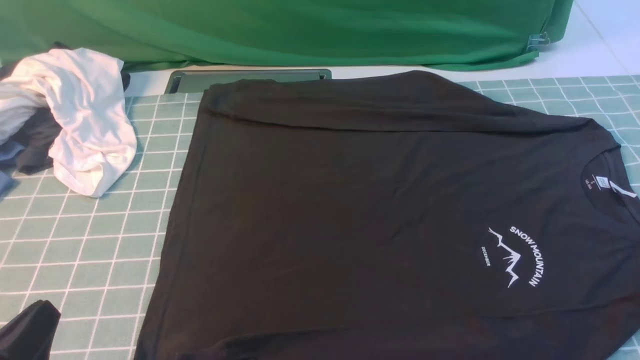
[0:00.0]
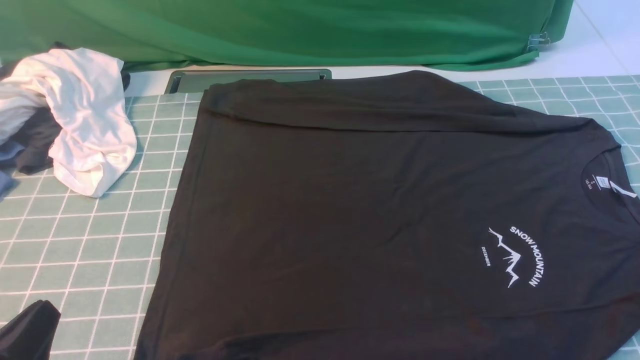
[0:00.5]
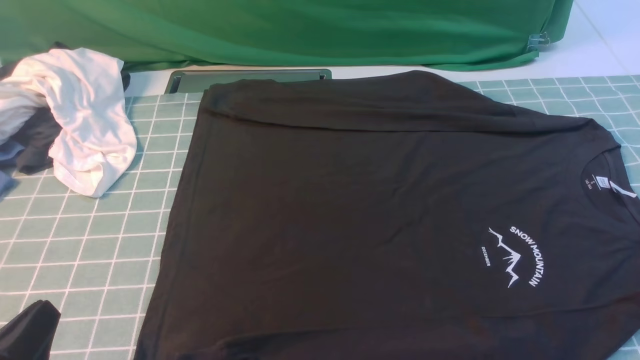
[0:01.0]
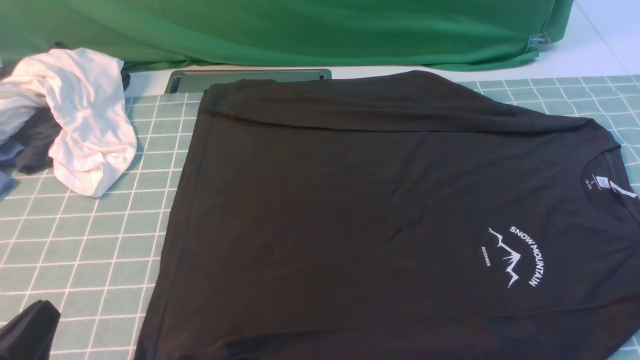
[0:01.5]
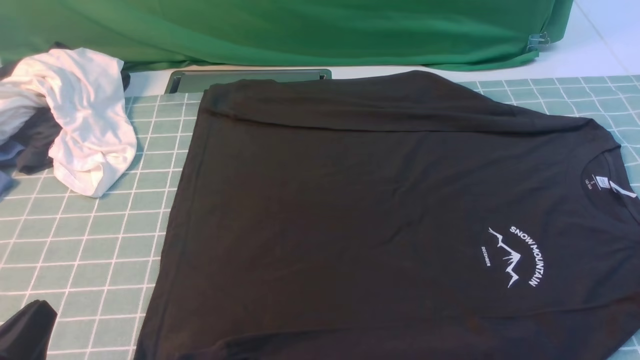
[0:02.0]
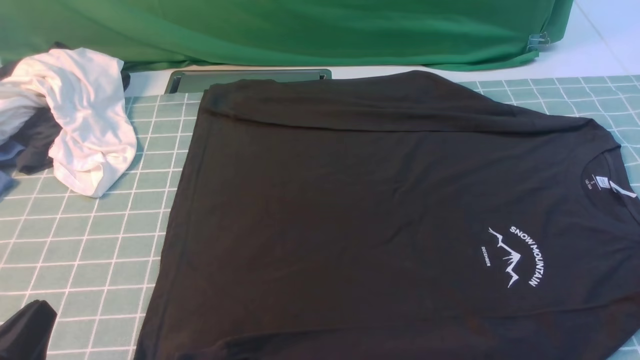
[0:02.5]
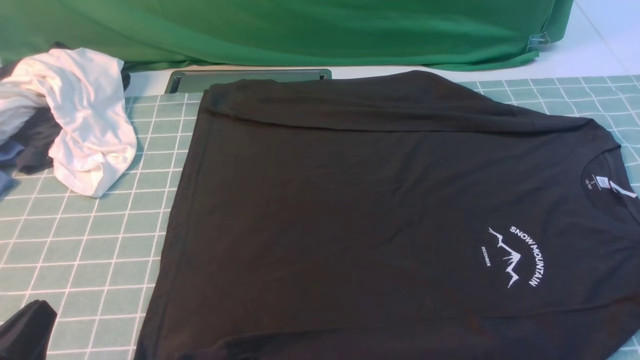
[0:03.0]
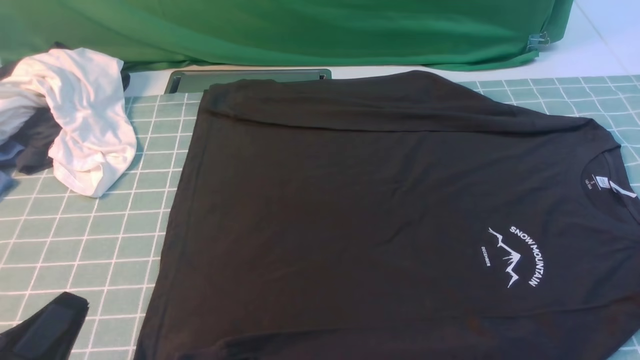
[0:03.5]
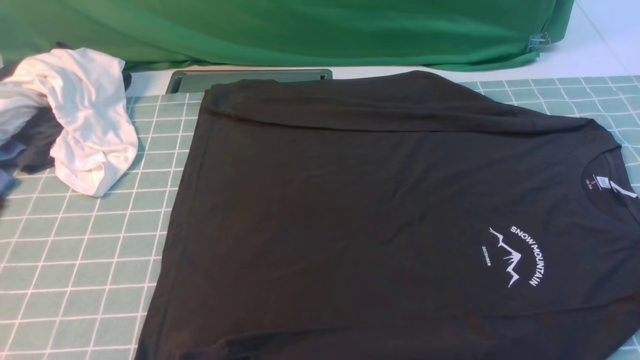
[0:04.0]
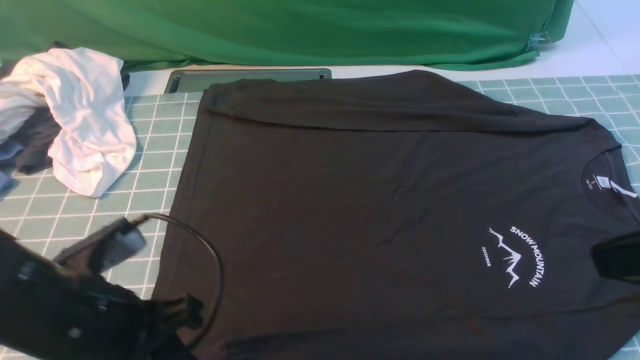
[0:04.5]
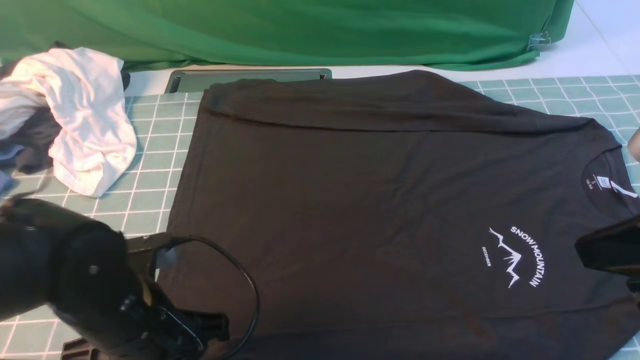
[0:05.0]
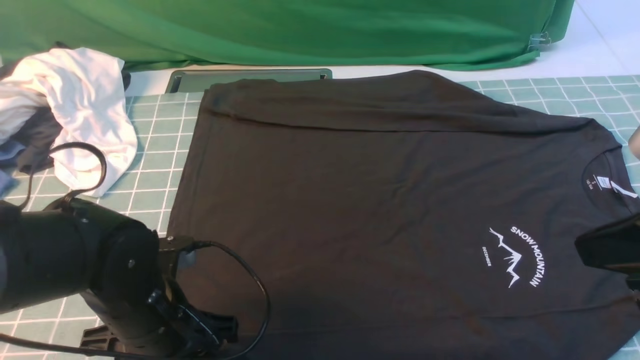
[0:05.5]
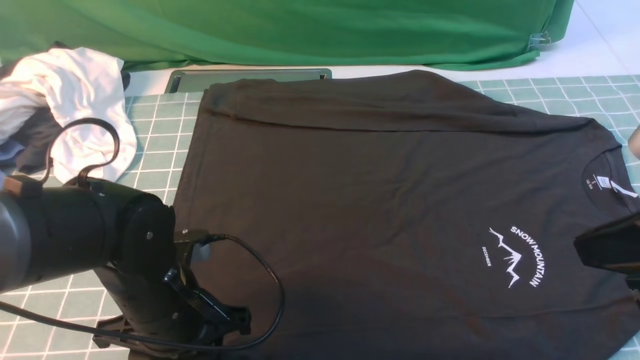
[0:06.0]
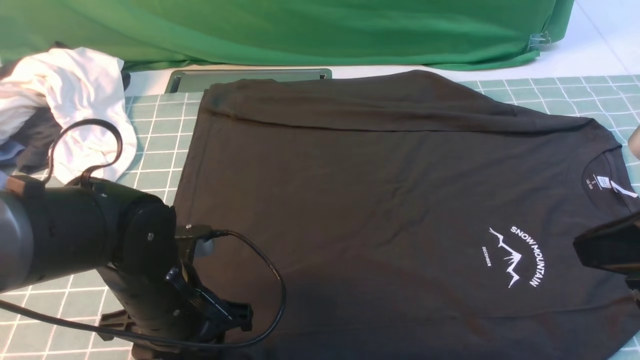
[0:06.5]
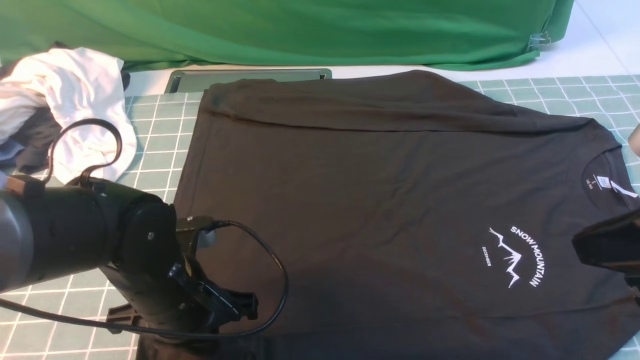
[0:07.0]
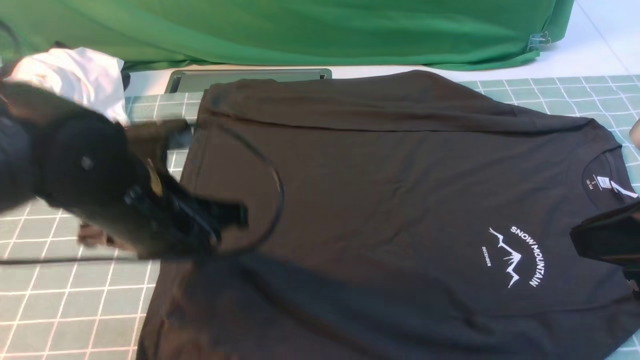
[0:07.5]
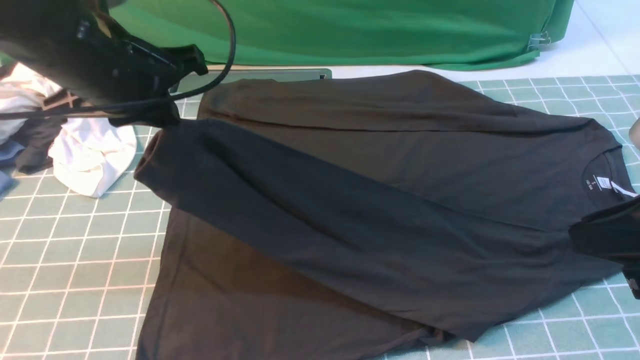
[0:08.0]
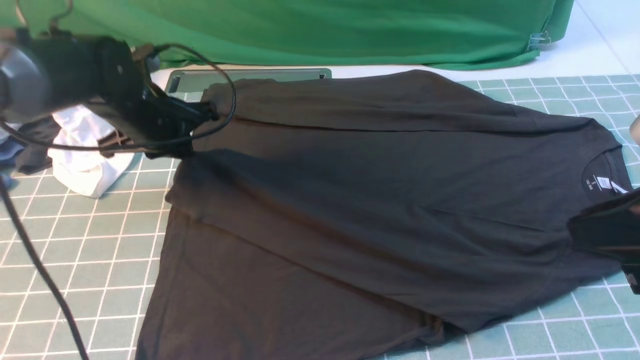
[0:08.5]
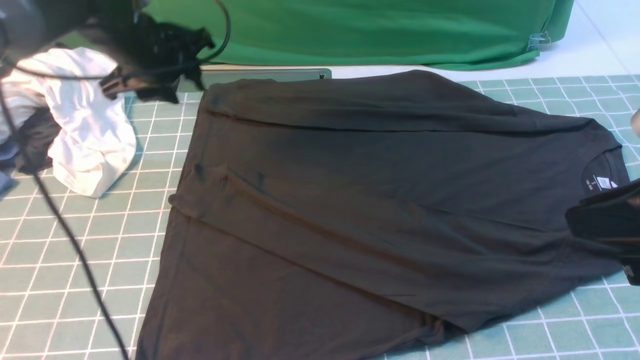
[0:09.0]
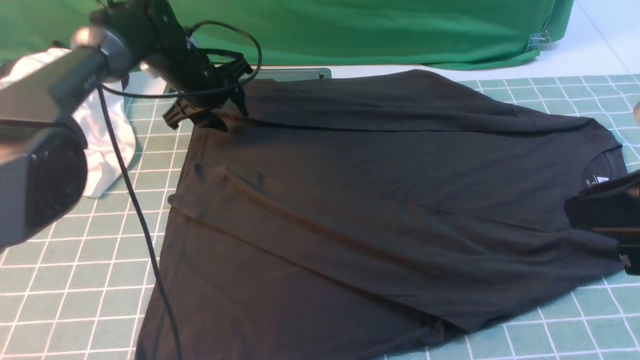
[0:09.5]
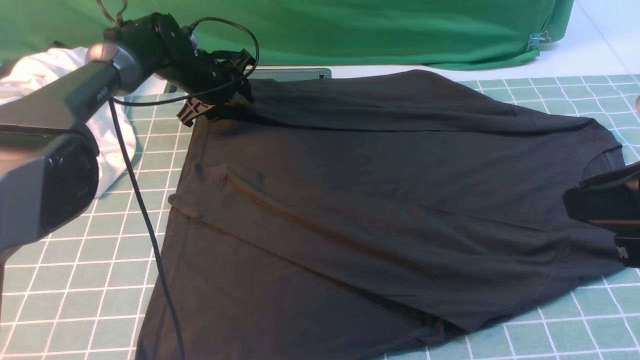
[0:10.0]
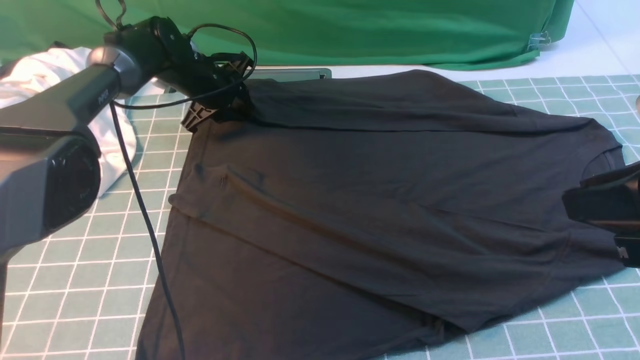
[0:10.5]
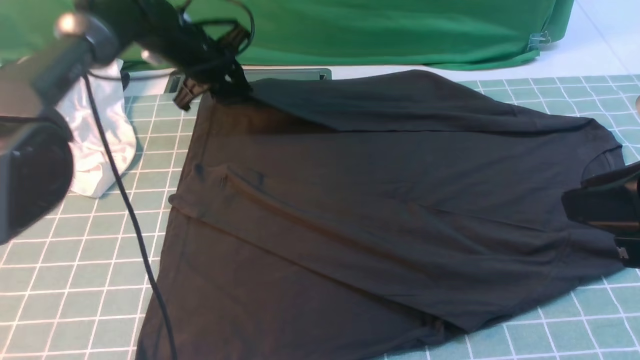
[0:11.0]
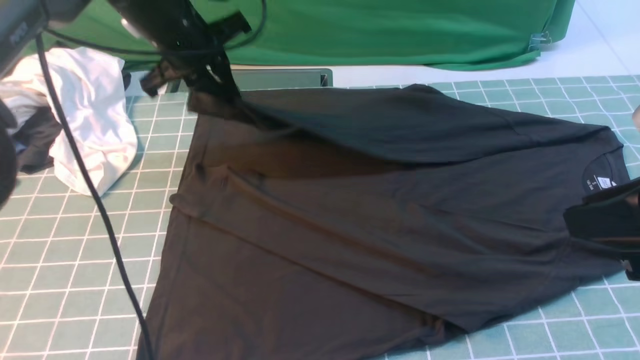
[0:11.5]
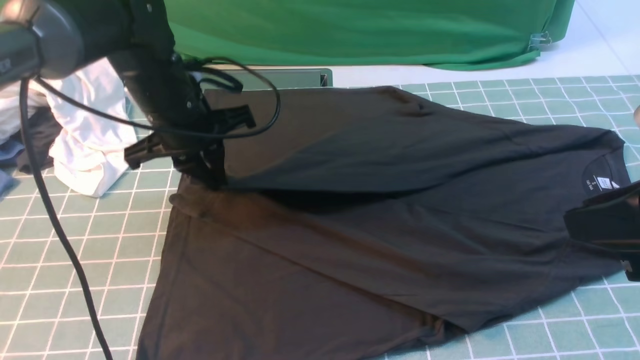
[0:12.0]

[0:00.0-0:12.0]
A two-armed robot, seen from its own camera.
Step, 0:00.0 to 0:07.0: use the left arm to clamp the cuff closest to it.
Step, 0:07.5 to 0:08.5: use the left arm to drag and place the cuff at the centered position on the left edge of the fabric.
Step, 0:09.0 to 0:10.5: use the left arm to clamp the cuff farthest from it.
0:00.0 to 0:02.0: Both grippers stay put.
0:02.0 to 0:04.0: The left gripper goes roughly 10 cm upward.
0:04.0 to 0:06.0: The right gripper is displaced forward by some 10 cm. The left gripper moves forward, downward and to the right, roughly 20 cm, and opens its fingers.
0:06.0 to 0:08.0: The left gripper shifts approximately 20 cm upward and forward, and closes its fingers.
0:08.0 to 0:10.0: The left gripper goes some 25 cm forward and downward, and opens its fingers.
0:10.0 to 0:12.0: The left gripper moves backward and upward, about 15 cm, and closes.

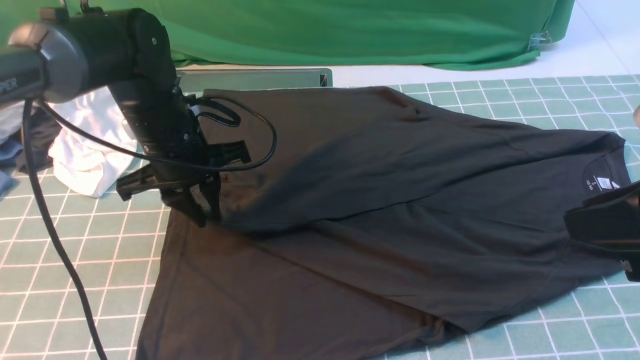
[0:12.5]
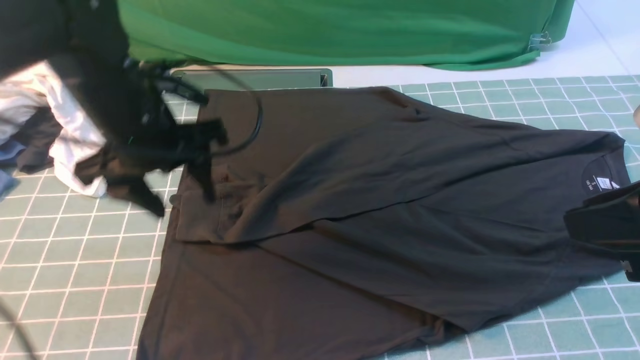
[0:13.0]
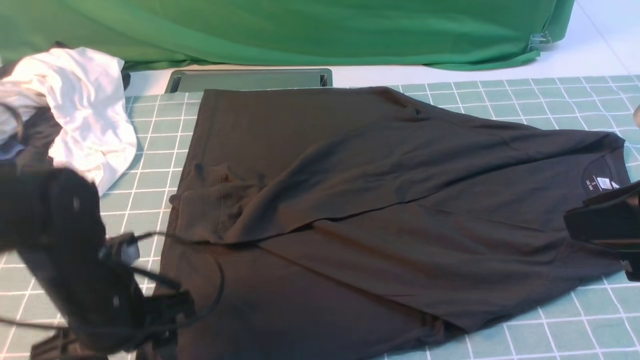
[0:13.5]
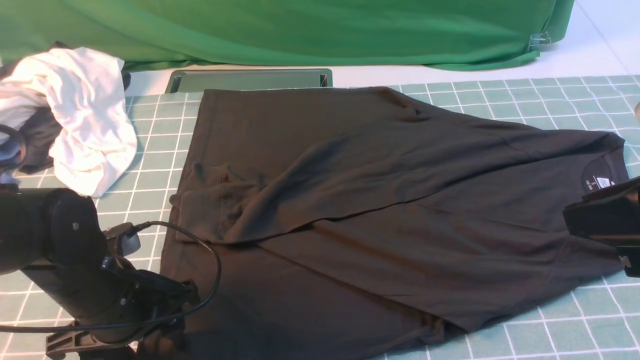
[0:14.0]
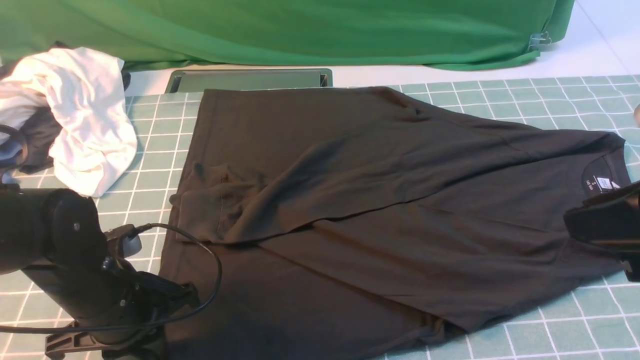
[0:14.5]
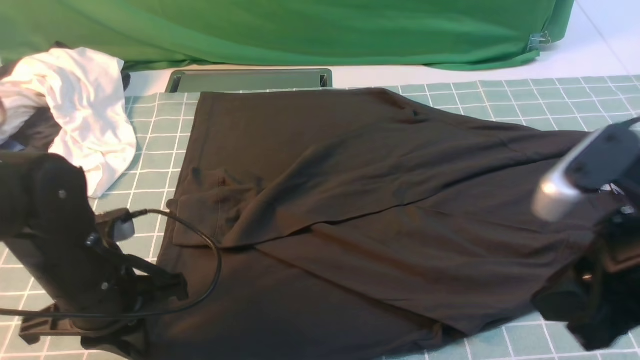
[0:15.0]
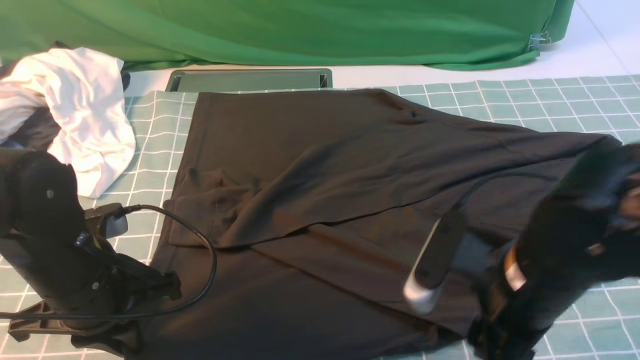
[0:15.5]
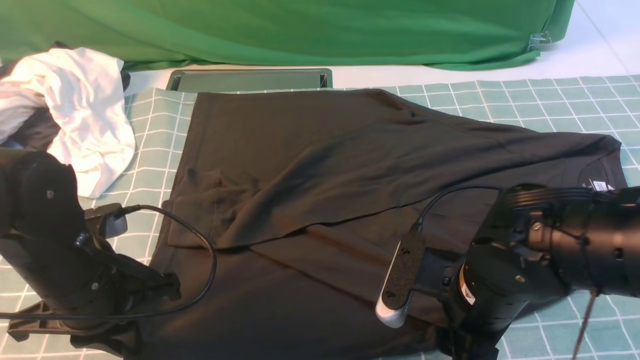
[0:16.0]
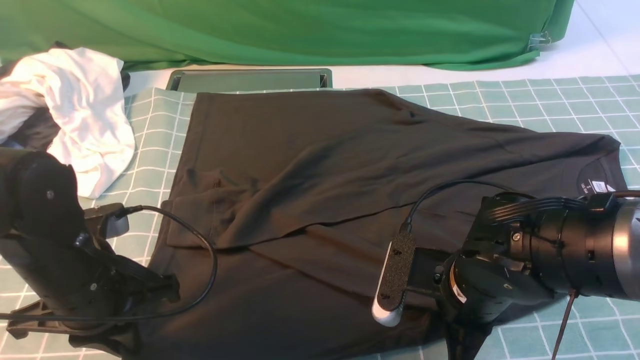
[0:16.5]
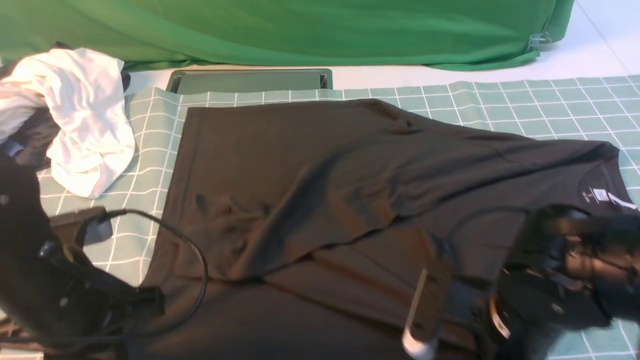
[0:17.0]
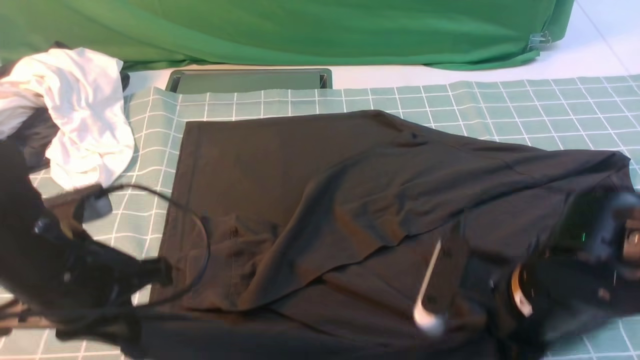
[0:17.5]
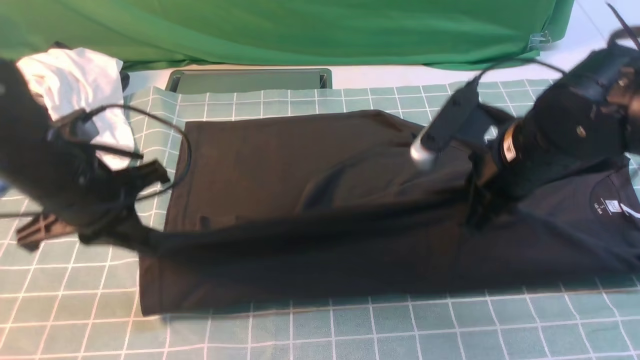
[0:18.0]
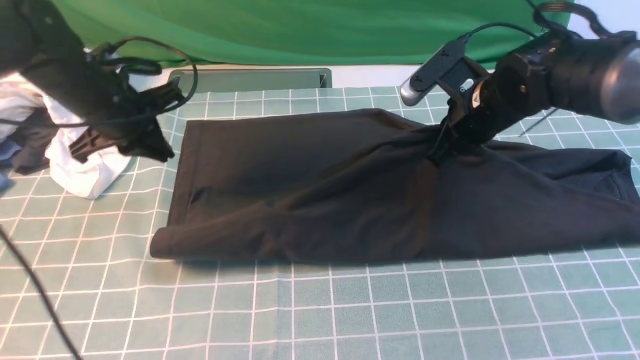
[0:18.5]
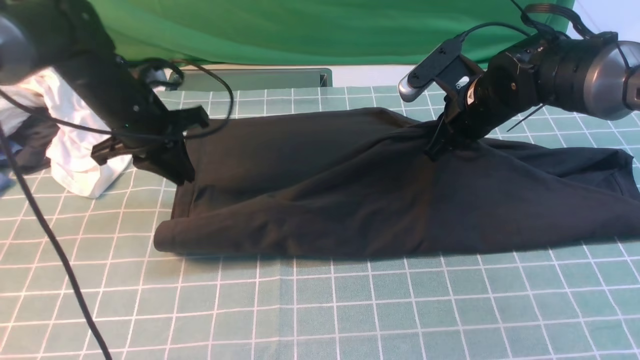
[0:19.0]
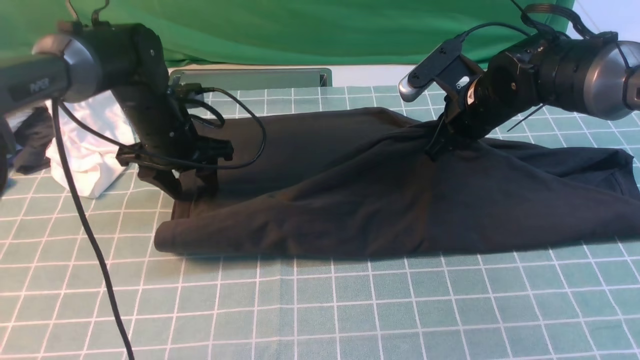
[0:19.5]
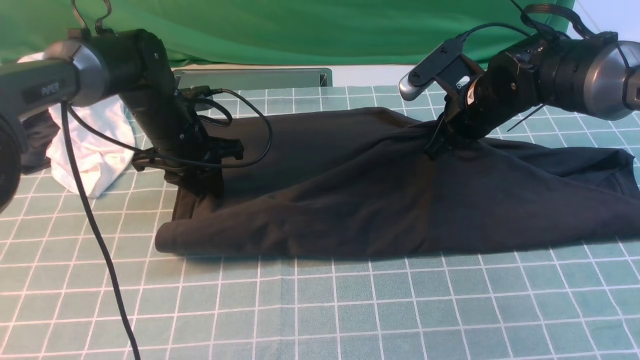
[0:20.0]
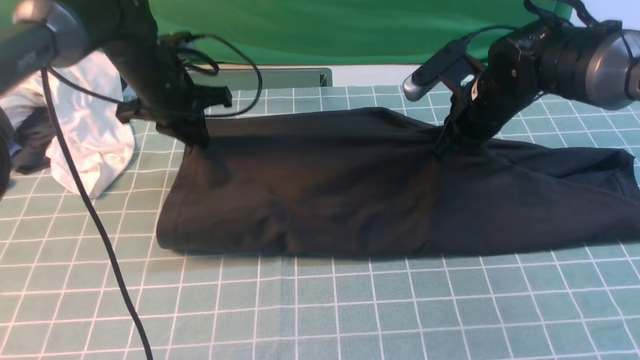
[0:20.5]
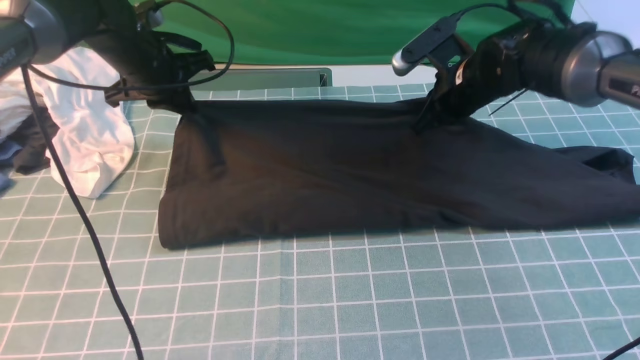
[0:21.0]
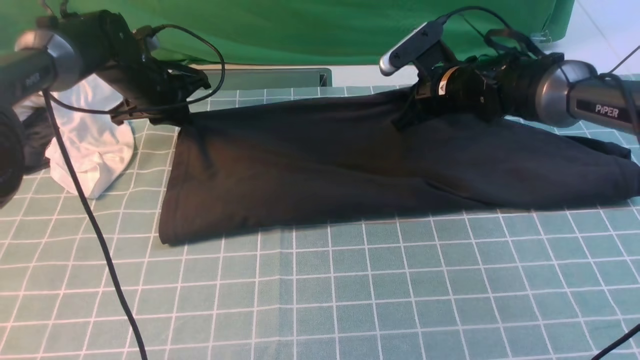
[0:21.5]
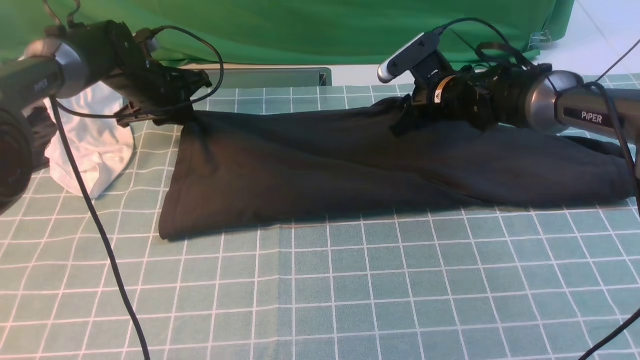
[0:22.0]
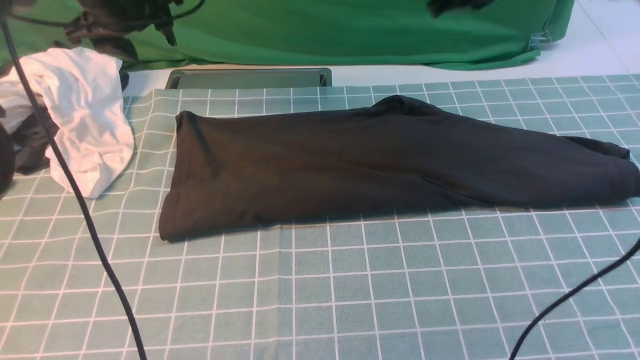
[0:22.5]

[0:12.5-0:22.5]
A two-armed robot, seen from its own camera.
Step, 0:13.0 to 0:16.5: use both arms simultaneously to clamp the lower edge of the clothing fabric.
Step, 0:17.0 to 0:22.0: use both arms to drag the lower edge of the fabric forward and fold it over the upper edge.
0:12.5 to 0:14.5: The left gripper heads backward and downward, covering roughly 15 cm, and opens, then closes again.
0:14.5 to 0:16.5: The right gripper moves downward and to the left, some 20 cm, and opens and closes again.
0:16.5 to 0:18.5: Both grippers travel together forward, some 20 cm.
0:18.5 to 0:20.5: The left gripper moves forward, roughly 5 cm, and opens, then closes once more.
0:20.5 to 0:22.5: The right gripper heads upward, covering roughly 15 cm, while the left gripper is displaced upward by roughly 10 cm, and opens up.
